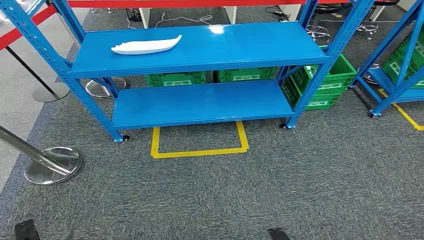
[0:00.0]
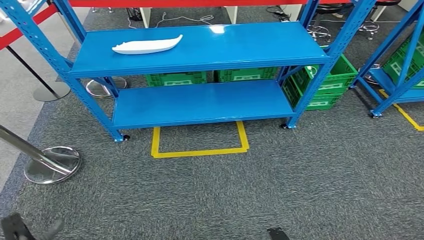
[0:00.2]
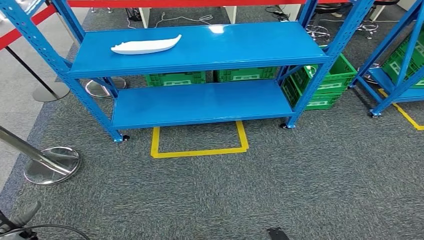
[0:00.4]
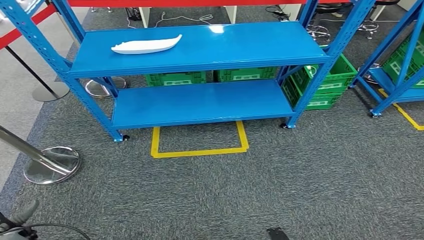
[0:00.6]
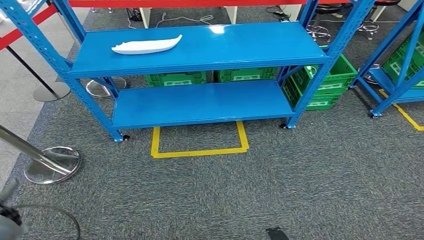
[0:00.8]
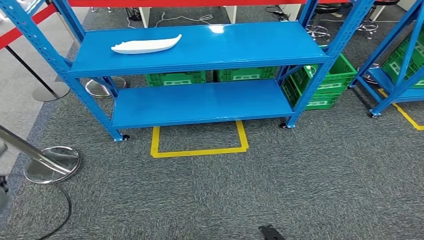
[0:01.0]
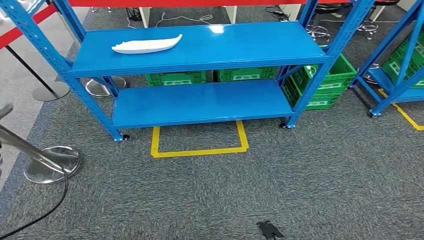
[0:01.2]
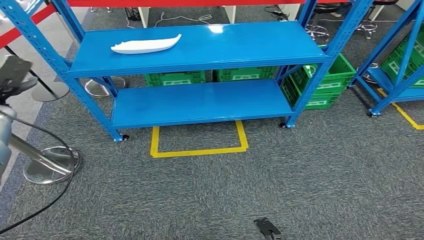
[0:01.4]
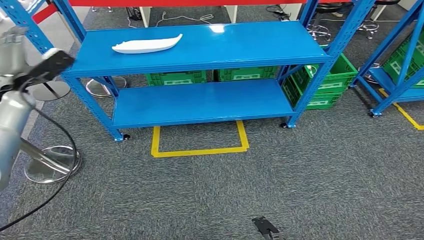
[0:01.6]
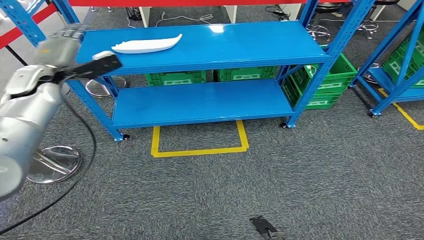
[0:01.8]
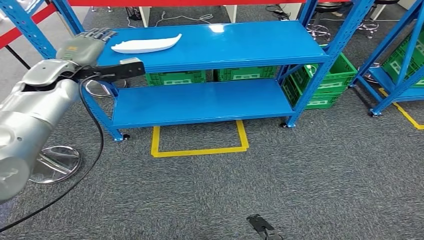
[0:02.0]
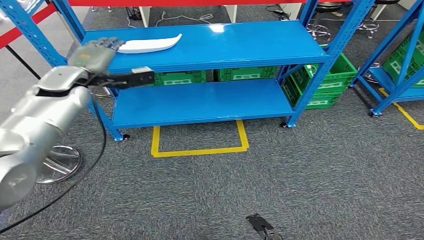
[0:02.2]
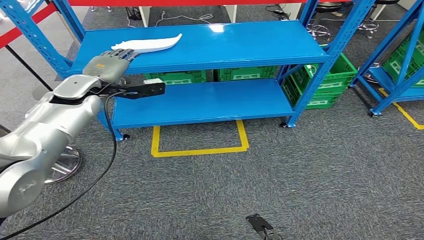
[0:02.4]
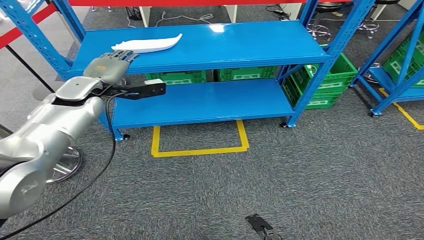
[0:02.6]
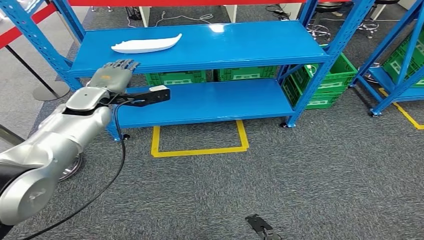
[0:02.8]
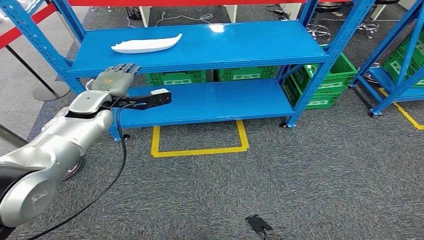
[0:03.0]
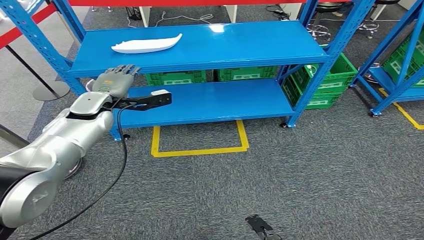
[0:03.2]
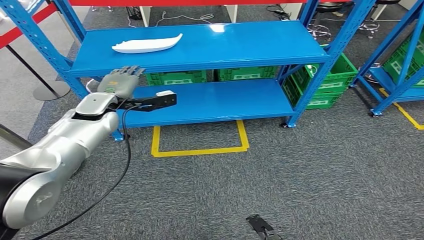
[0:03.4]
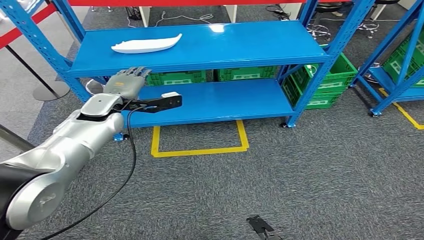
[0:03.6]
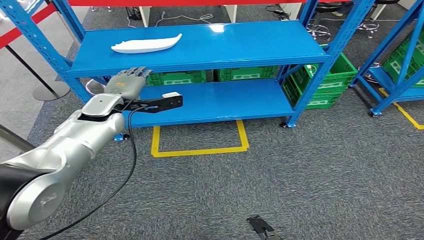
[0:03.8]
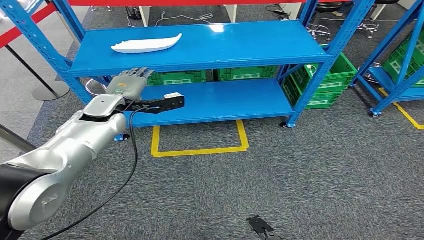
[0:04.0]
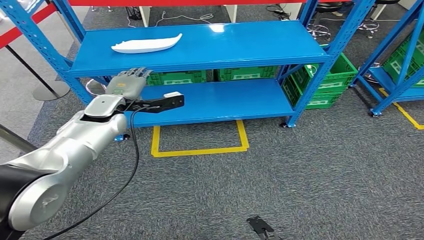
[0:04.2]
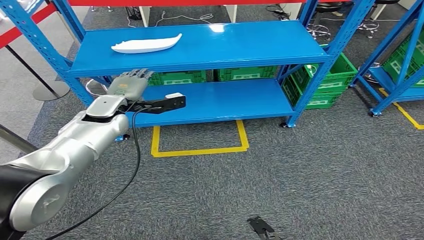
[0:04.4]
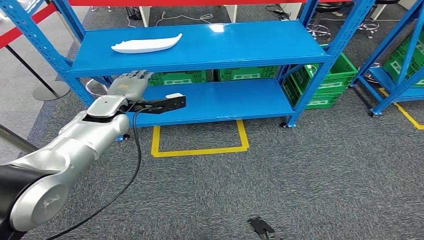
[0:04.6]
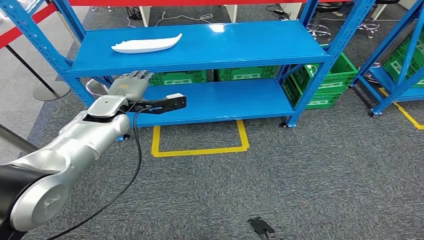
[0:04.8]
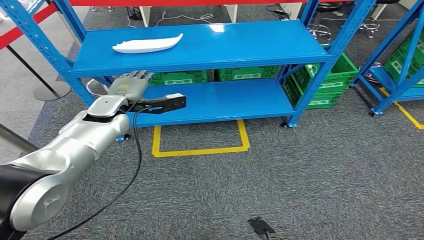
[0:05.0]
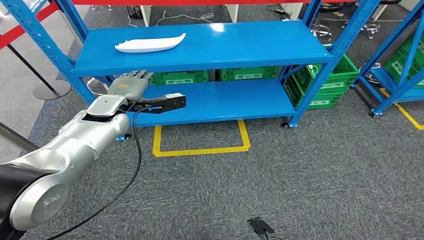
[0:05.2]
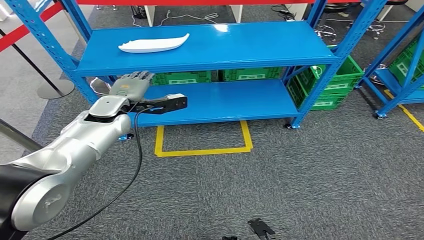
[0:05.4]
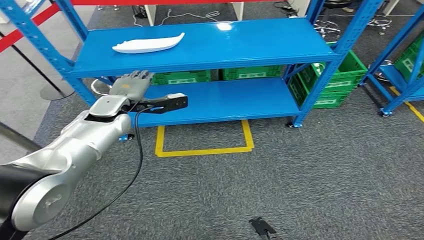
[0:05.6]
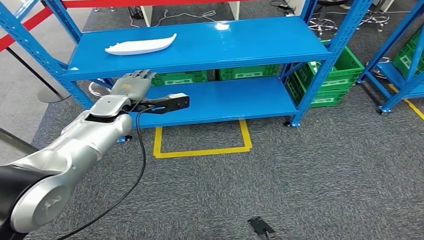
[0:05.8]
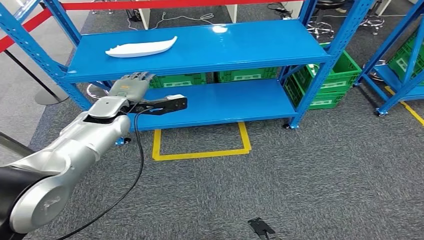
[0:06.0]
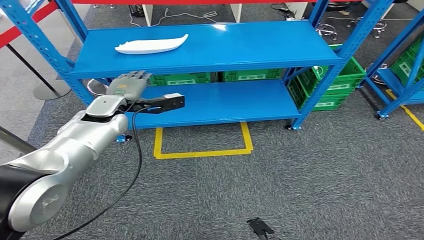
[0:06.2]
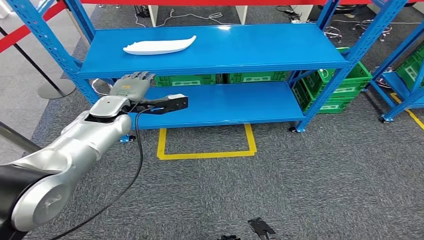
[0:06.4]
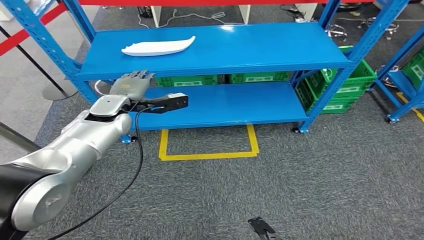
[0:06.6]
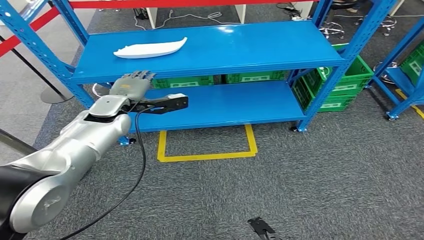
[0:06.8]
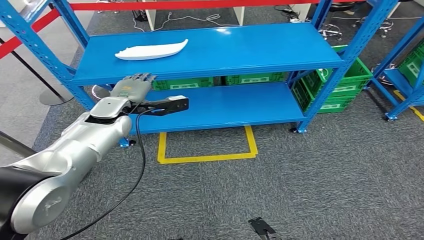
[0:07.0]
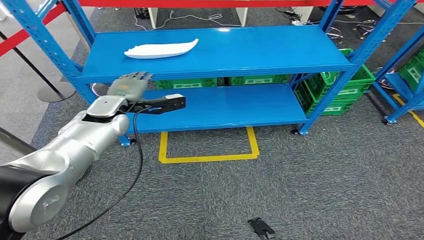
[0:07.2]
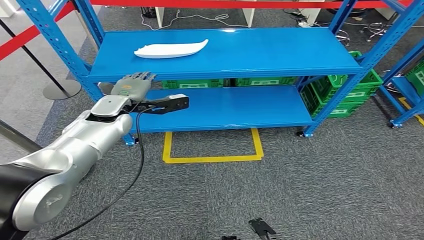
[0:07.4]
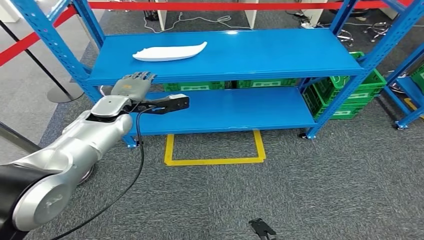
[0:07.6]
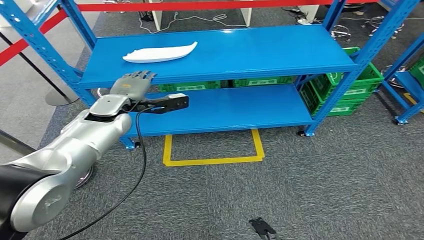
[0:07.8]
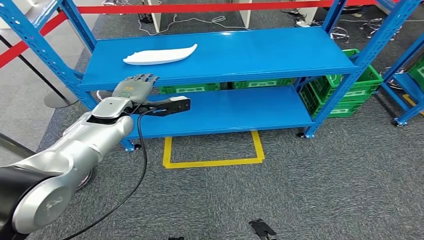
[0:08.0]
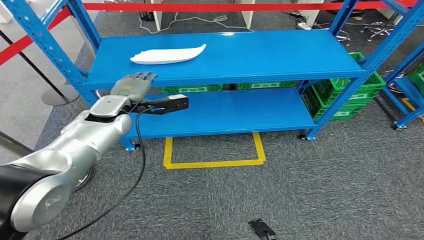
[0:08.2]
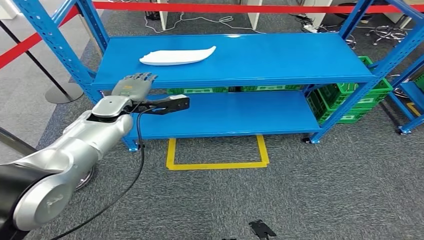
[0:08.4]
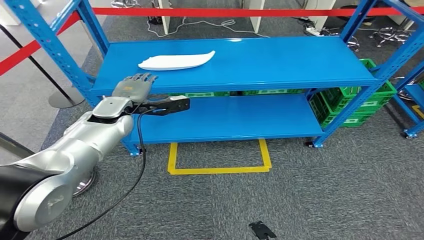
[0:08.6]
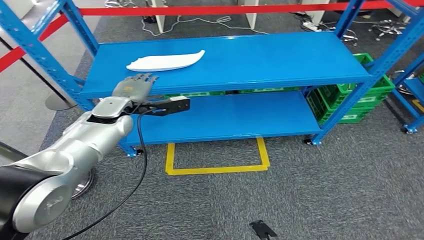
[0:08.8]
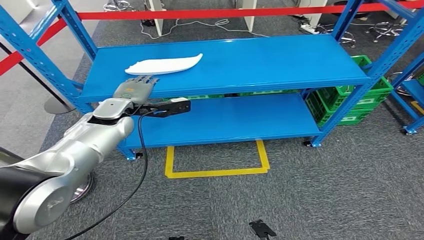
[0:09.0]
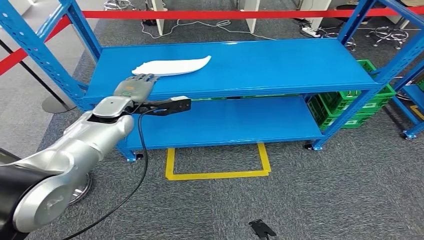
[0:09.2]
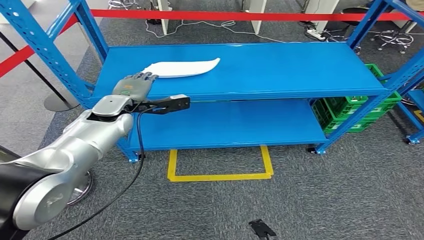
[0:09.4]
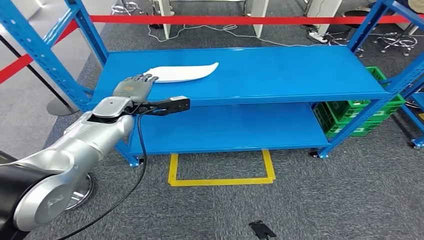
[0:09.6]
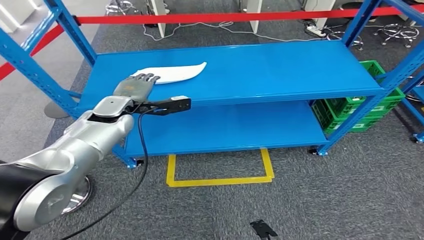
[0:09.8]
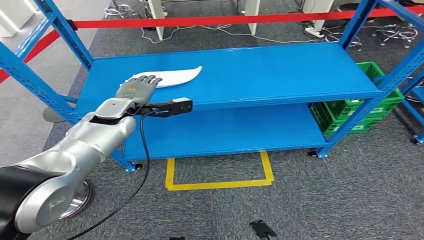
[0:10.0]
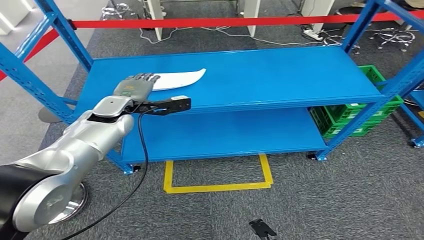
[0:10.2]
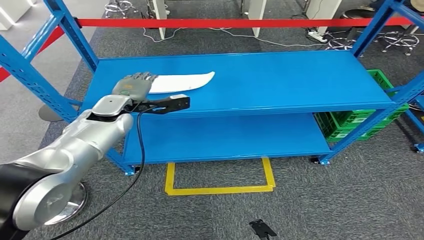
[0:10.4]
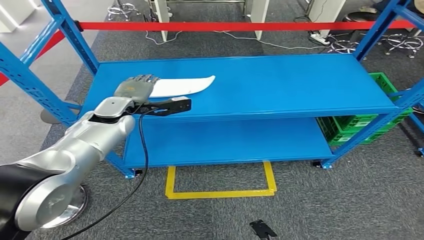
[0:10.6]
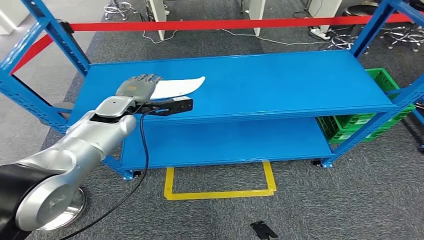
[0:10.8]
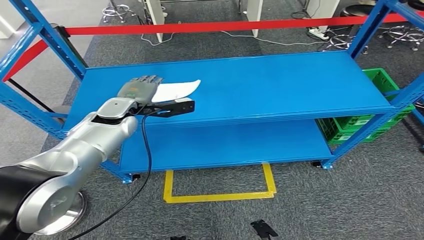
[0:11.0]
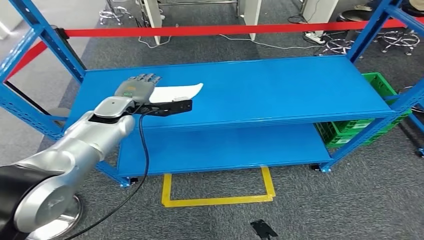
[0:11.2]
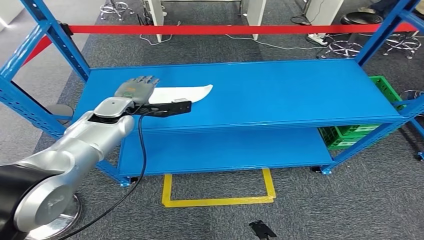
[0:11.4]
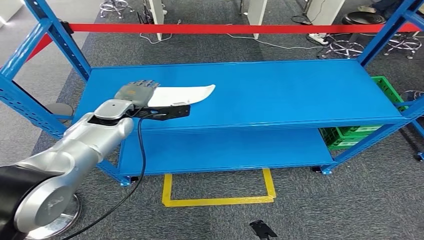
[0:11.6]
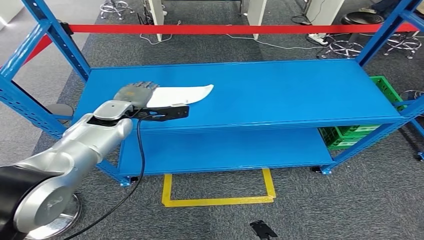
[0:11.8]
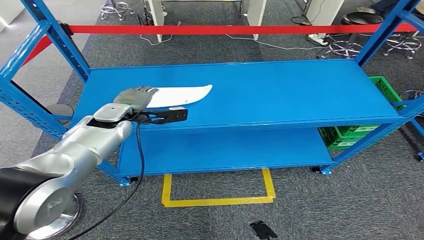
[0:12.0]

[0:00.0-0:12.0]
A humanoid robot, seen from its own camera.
0:01.6 to 0:03.0: The left hand is displaced to the right by about 15 cm.
0:03.0 to 0:04.4: There are only small adjustments of the hands.
0:04.4 to 0:06.0: Both hands stay put.

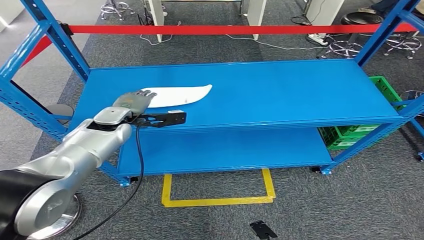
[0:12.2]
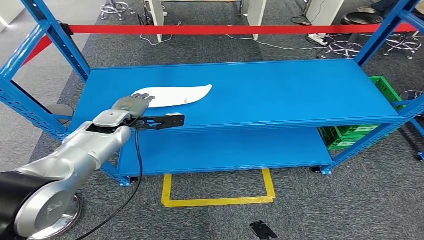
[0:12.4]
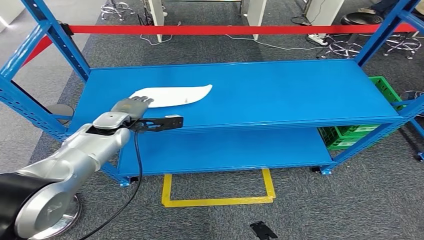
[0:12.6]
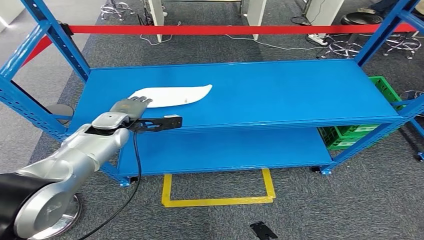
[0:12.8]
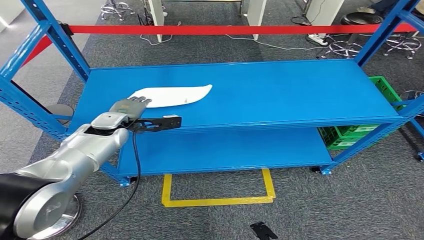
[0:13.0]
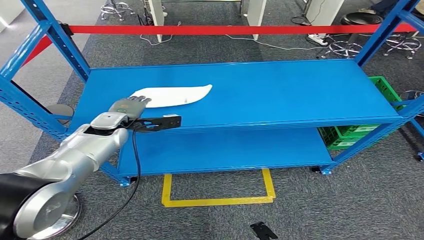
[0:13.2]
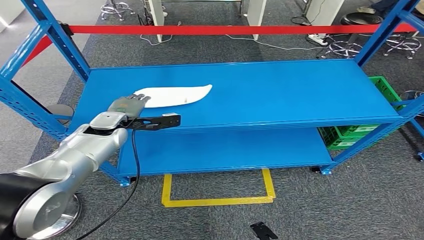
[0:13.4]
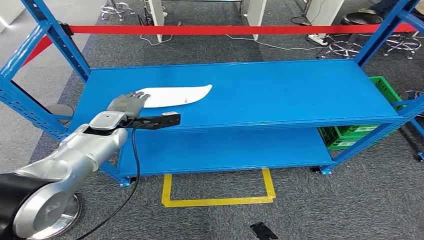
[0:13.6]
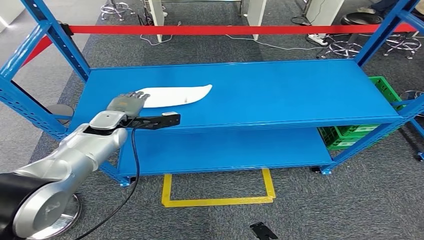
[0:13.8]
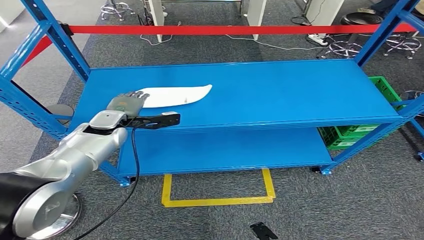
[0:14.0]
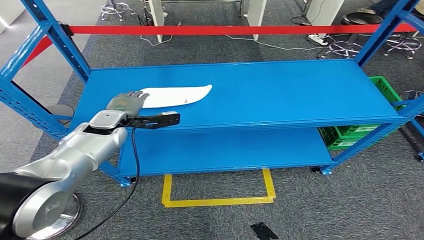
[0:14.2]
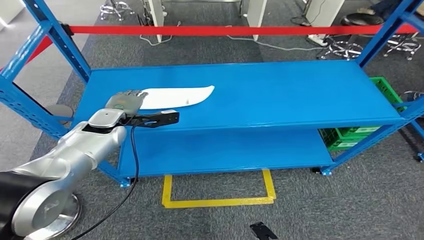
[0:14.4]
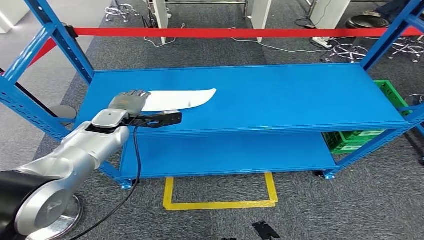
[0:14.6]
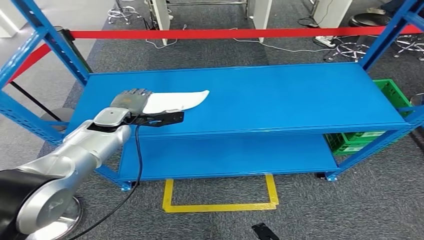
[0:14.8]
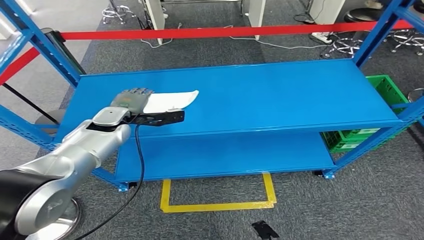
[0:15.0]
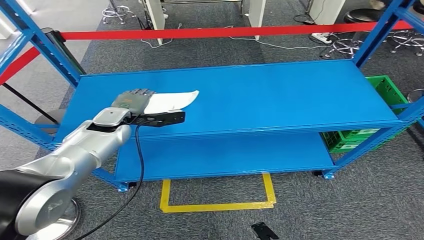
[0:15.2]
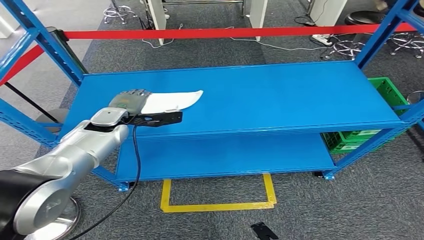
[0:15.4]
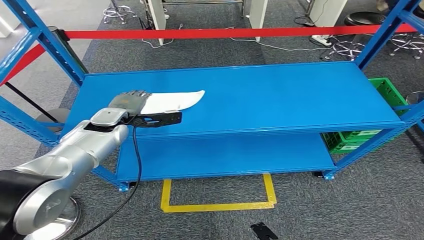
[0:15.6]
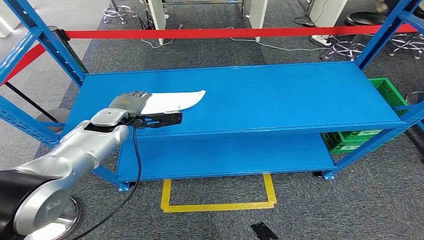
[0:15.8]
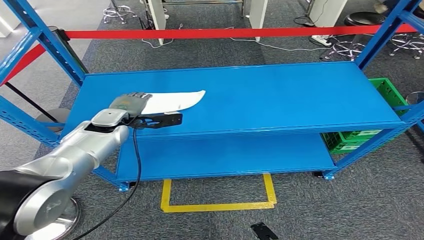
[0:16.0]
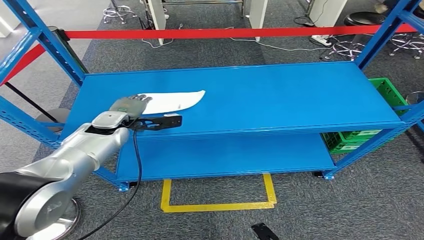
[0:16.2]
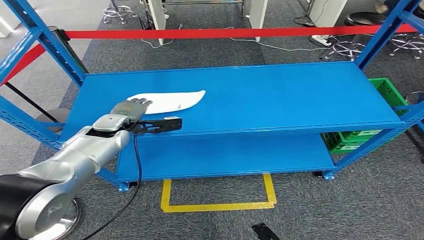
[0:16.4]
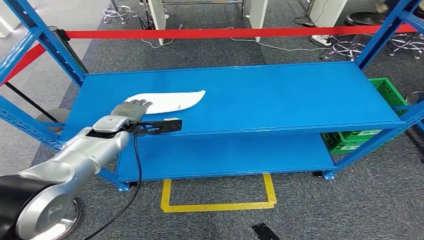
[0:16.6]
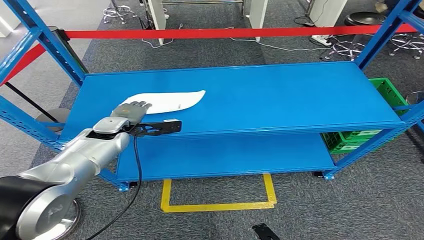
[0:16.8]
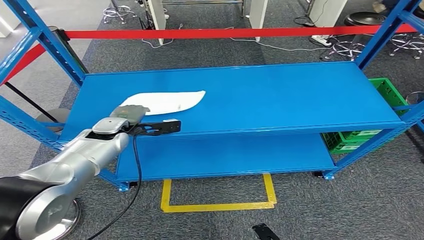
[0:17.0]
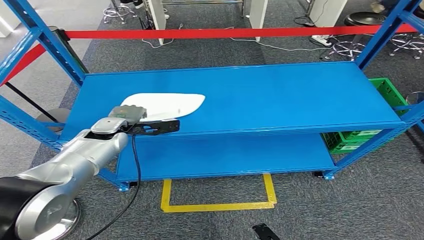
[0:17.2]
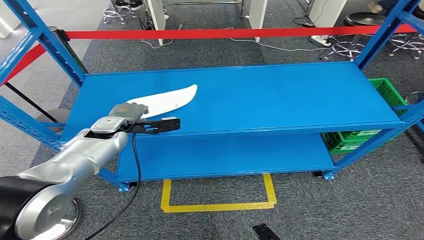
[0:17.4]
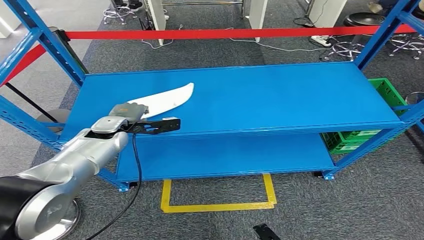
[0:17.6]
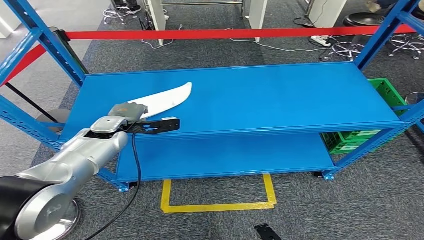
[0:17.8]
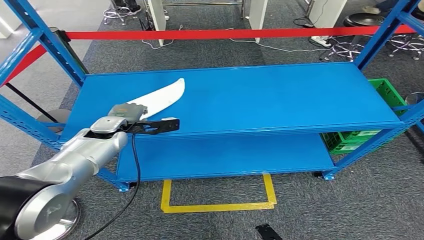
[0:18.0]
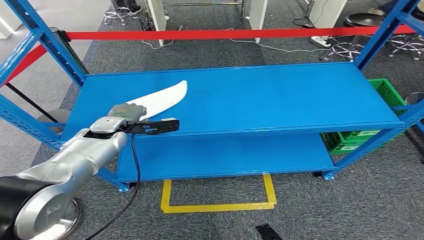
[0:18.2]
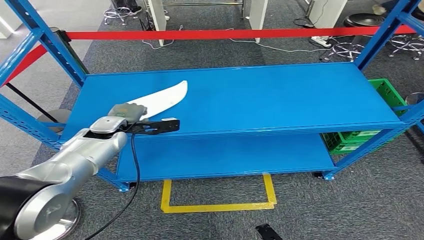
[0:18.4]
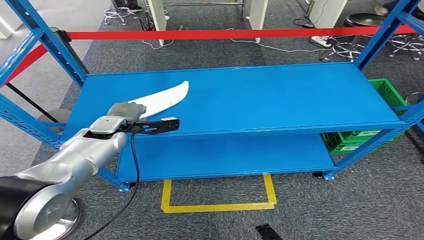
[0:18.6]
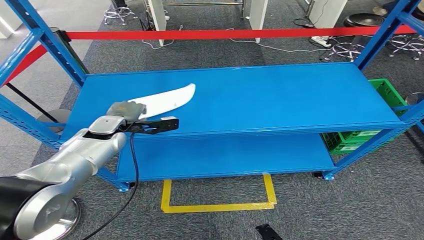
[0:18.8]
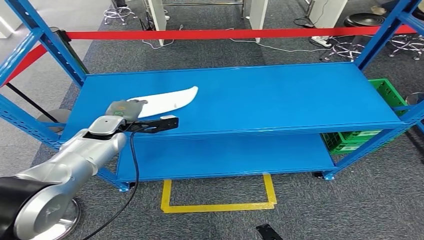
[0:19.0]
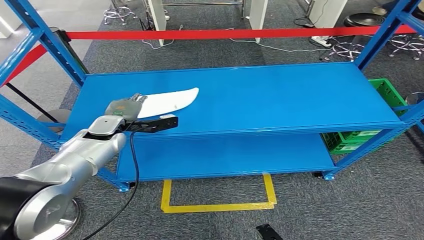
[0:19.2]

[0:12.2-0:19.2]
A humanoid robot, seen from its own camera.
0:12.2 to 0:13.6: The hands make only small movements.
0:15.0 to 0:16.4: The hands move only a little.
0:16.4 to 0:17.8: Both hands stay put.
0:17.8 to 0:19.2: The hands stay close to where they were, moving slightly.
